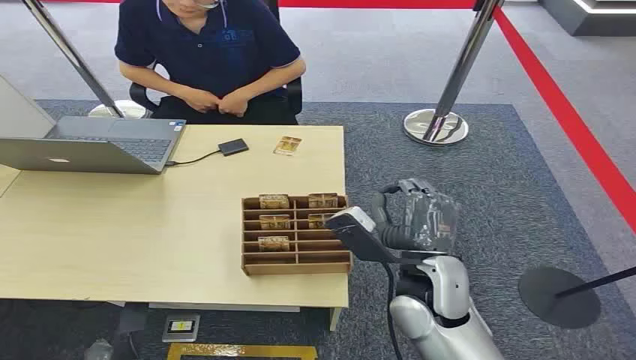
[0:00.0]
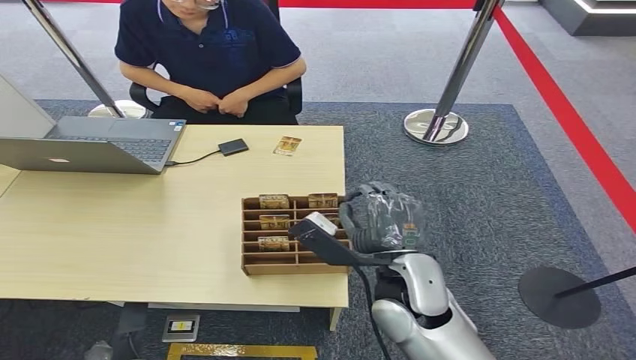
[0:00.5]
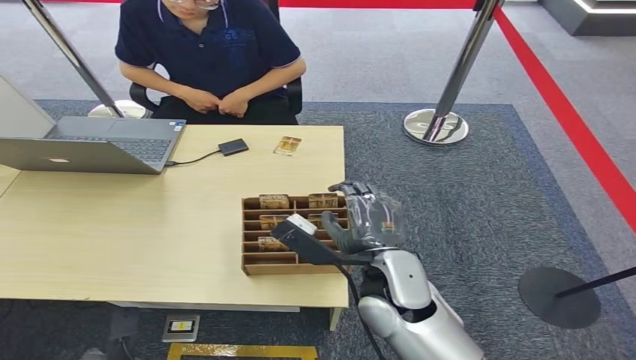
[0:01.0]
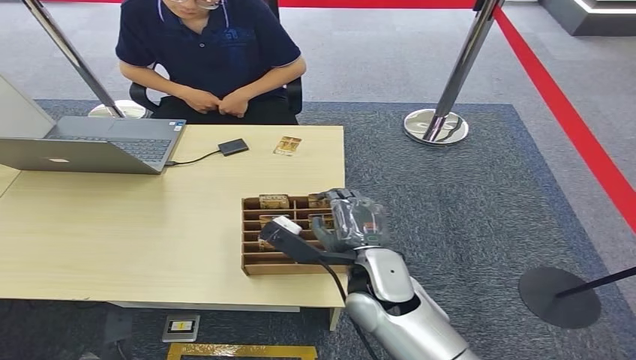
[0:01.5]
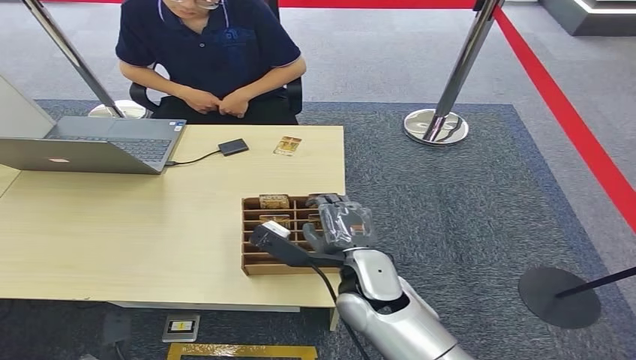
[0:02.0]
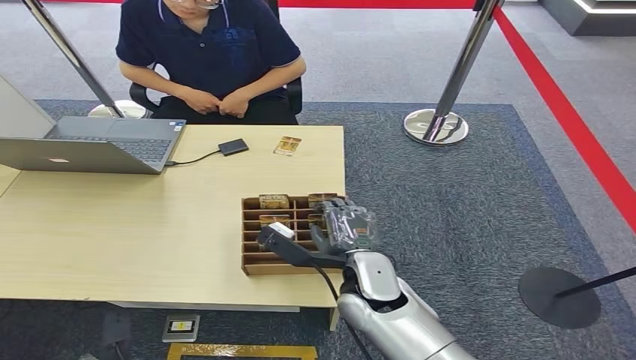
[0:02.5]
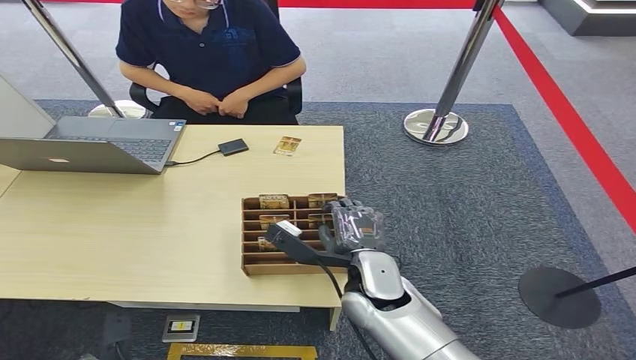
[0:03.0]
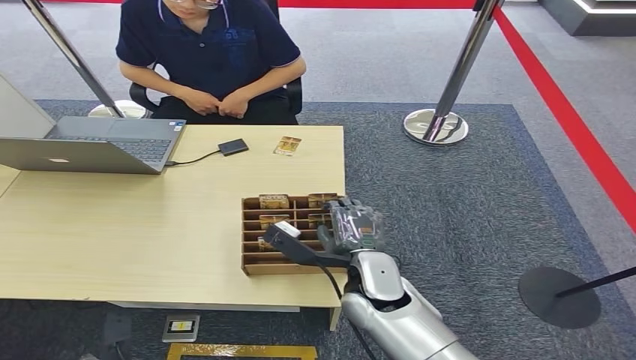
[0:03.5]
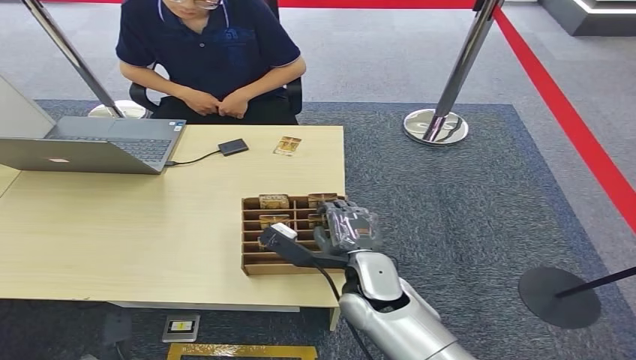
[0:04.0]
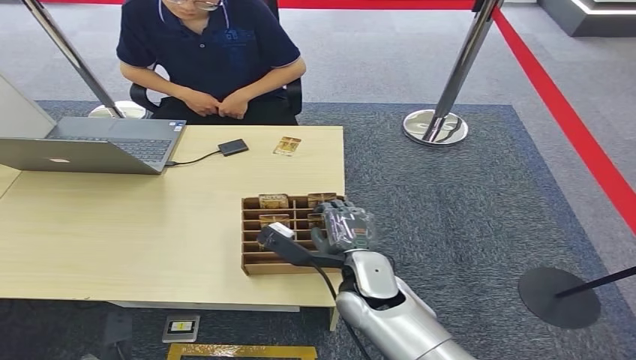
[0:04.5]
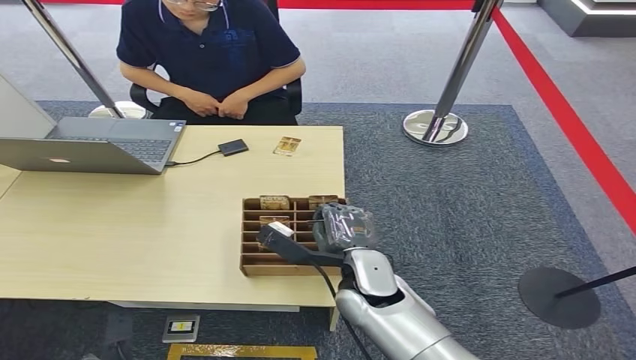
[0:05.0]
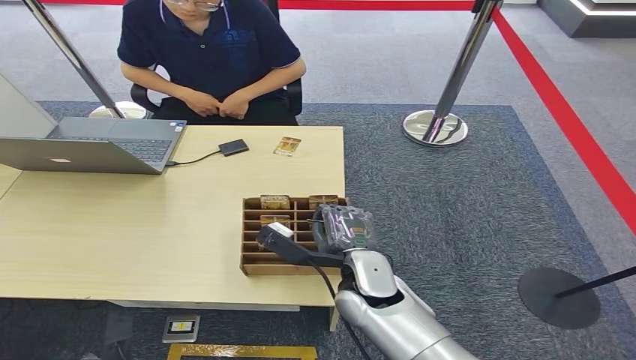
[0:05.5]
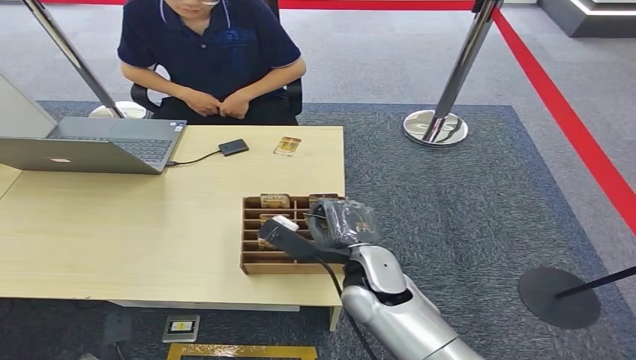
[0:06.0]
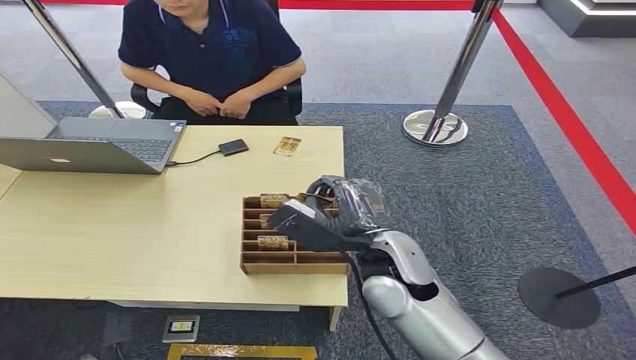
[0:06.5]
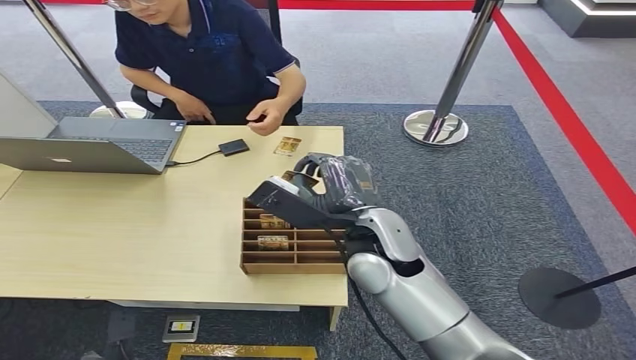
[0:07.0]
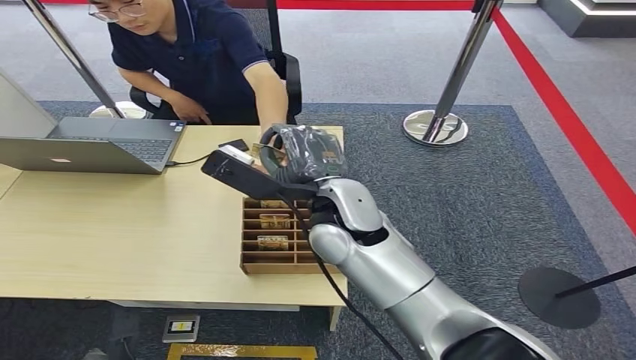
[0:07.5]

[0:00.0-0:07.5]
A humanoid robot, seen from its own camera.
Step, 0:00.0 to 0:07.0: Pick up the key card from the card box.
0:02.0 to 0:04.0: The hands make only small movements.
0:04.0 to 0:05.5: The two hands keep their place.
0:05.5 to 0:07.5: The right hand heads upward and forward, covering some 15 cm.

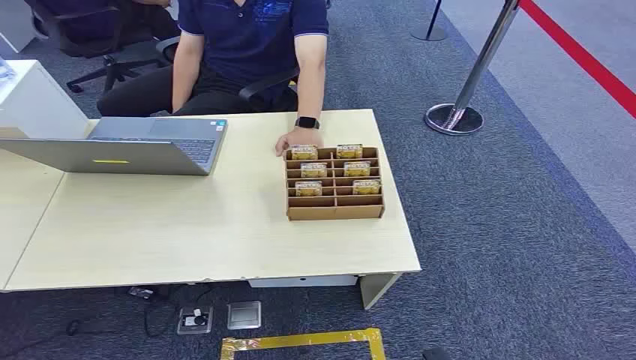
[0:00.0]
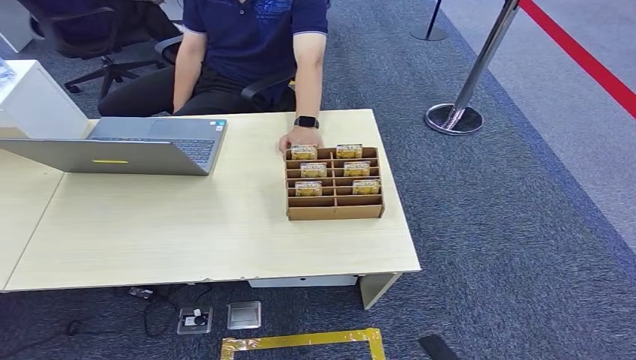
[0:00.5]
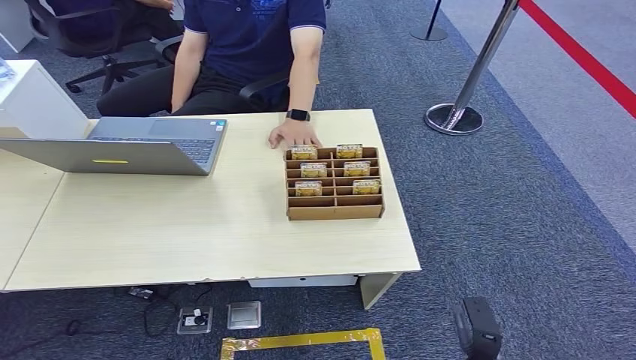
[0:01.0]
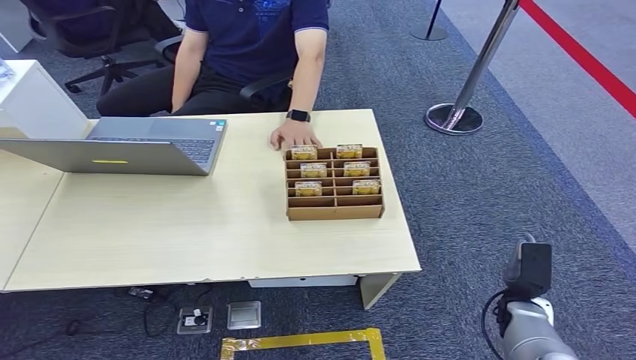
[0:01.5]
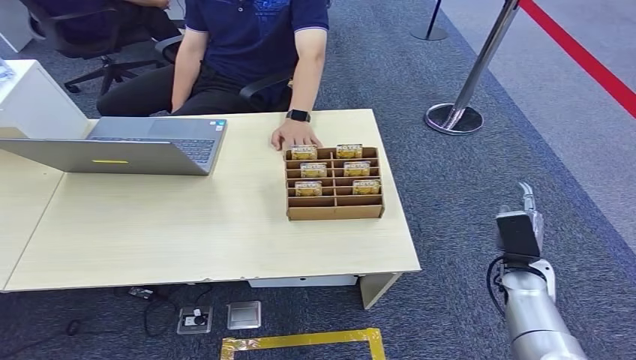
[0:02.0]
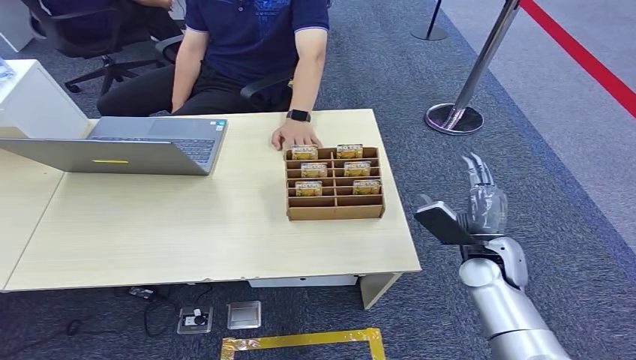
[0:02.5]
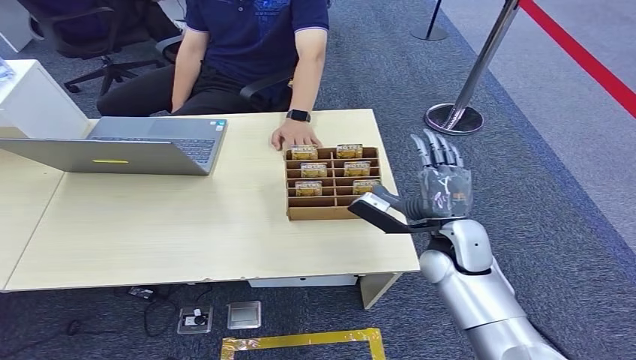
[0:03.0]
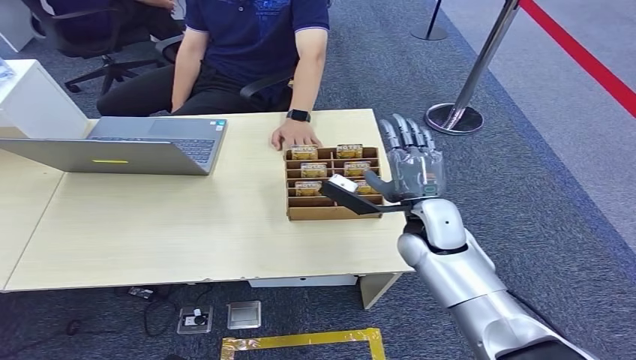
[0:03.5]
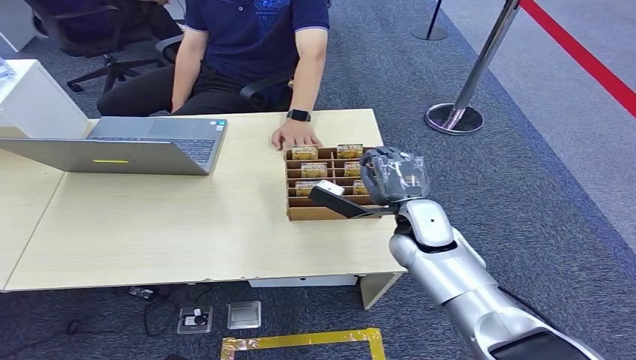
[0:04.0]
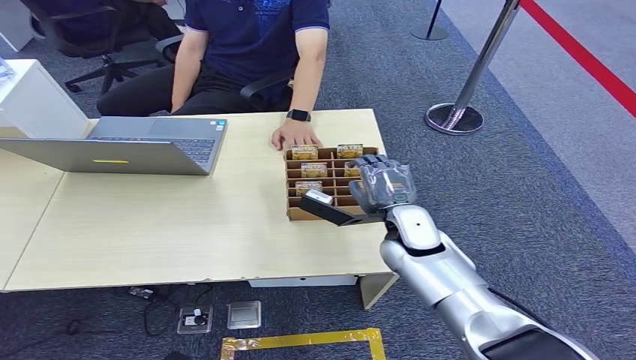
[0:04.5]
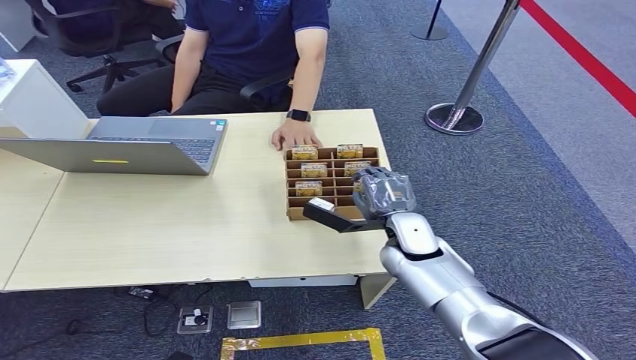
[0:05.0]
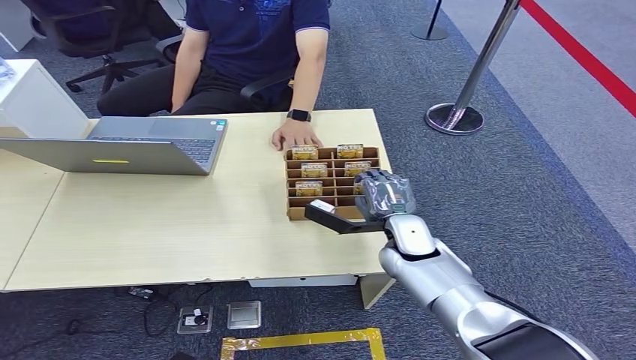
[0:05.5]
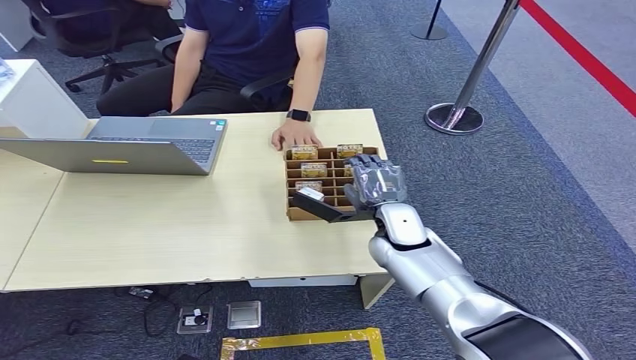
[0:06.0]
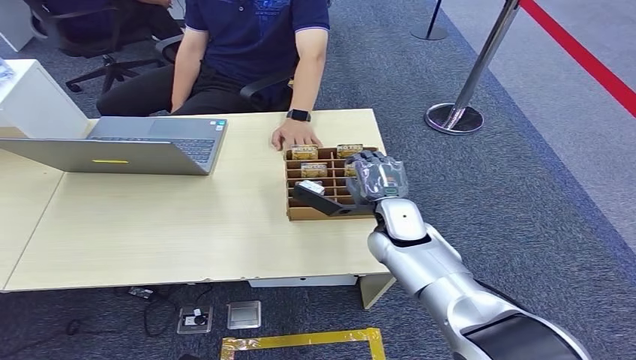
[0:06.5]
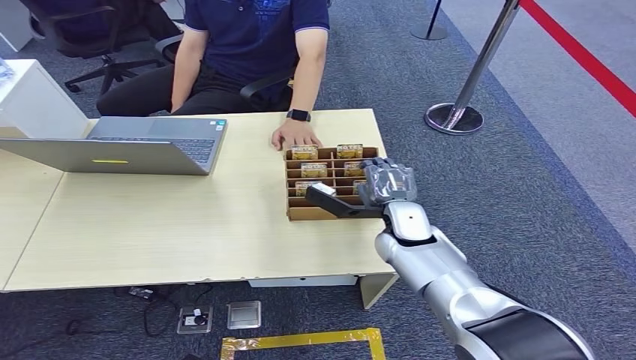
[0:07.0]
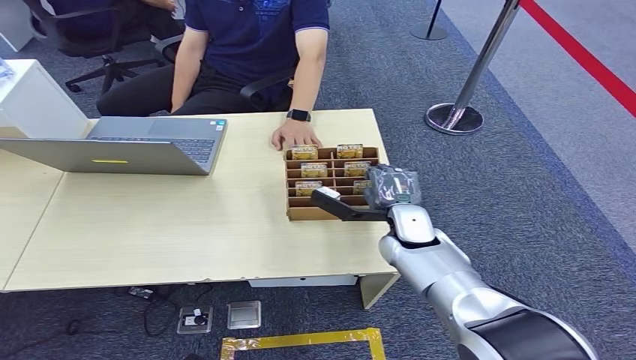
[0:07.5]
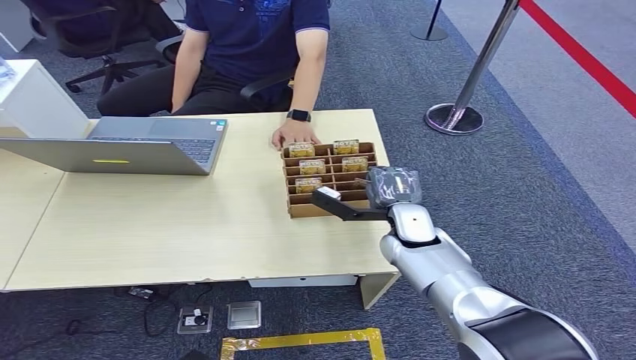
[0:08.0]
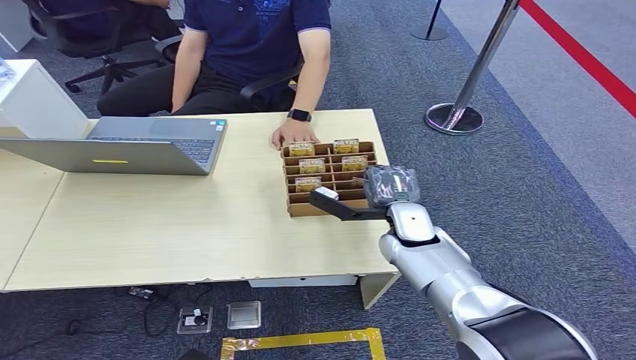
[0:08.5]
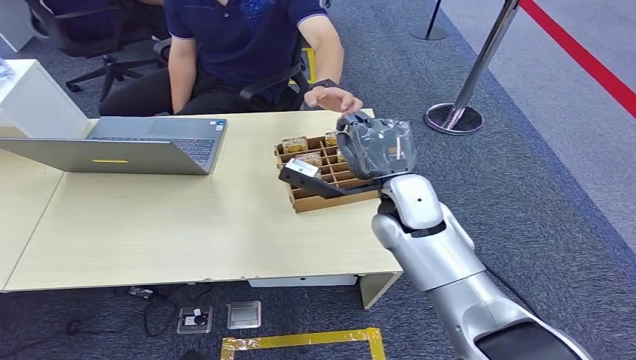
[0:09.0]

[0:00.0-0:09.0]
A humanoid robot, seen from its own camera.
Step, 0:00.0 to 0:08.5: Pick up the key card from the card box.
0:02.0 to 0:04.5: The right hand travels to the left and upward by roughly 20 cm.
0:04.5 to 0:07.0: The hands move only a little.
0:07.0 to 0:09.0: The right hand travels upward by roughly 10 cm.

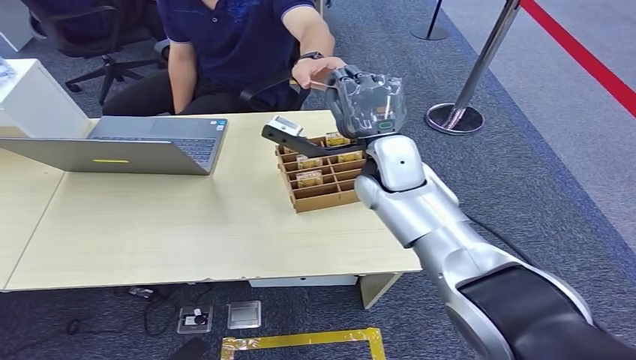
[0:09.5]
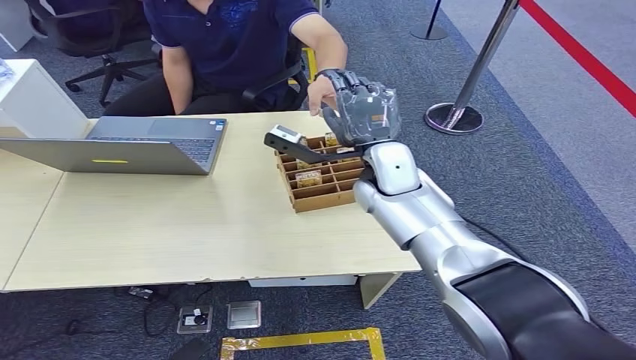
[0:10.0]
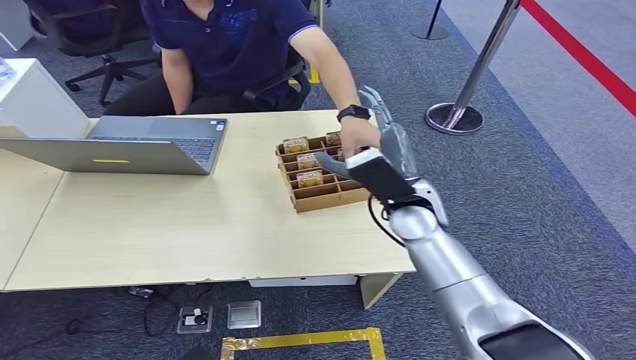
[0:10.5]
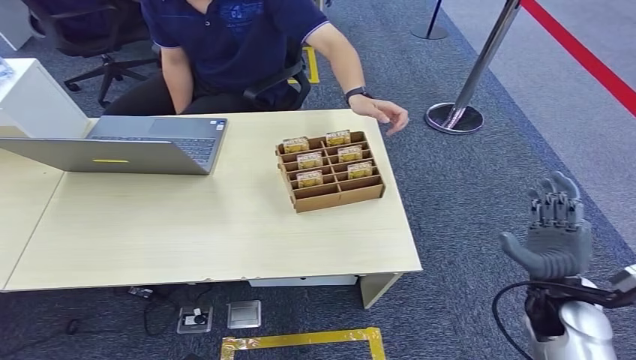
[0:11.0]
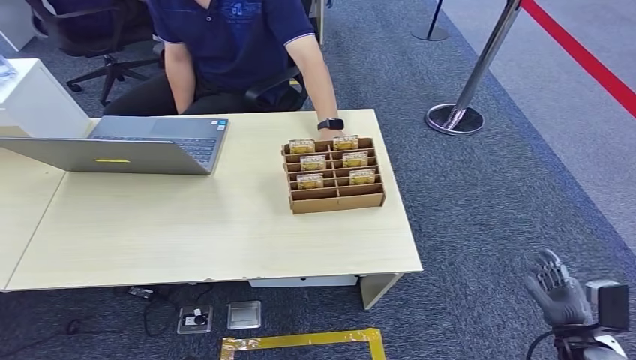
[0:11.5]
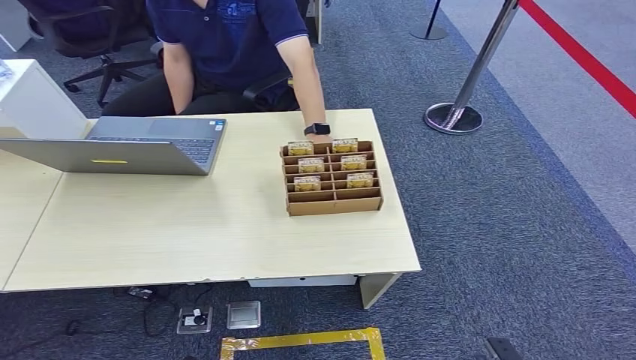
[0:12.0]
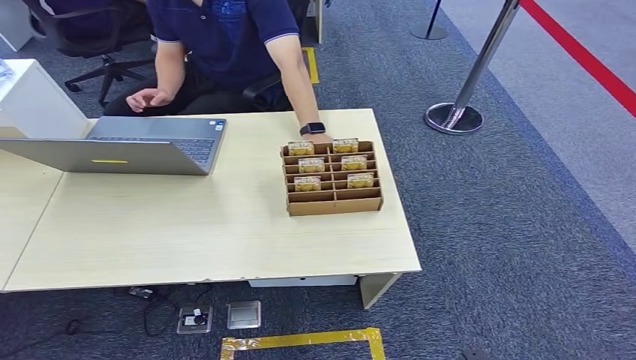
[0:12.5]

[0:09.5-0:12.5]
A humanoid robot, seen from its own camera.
Step, 0:09.5 to 0:12.5: Hand the key card to the target.
0:09.5 to 0:11.0: The right hand is displaced to the right, backward and downward by about 35 cm.
0:11.0 to 0:12.5: The right hand goes approximately 30 cm downward and backward.
